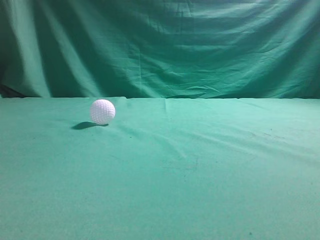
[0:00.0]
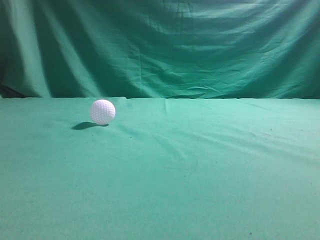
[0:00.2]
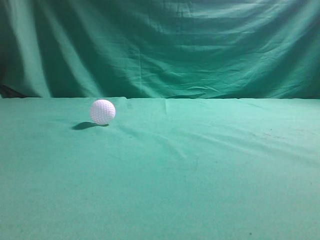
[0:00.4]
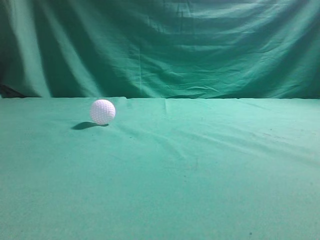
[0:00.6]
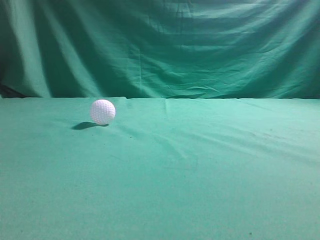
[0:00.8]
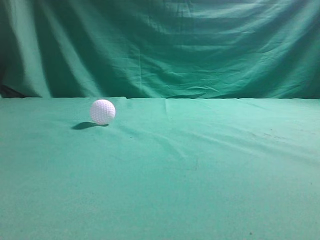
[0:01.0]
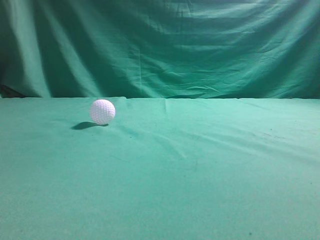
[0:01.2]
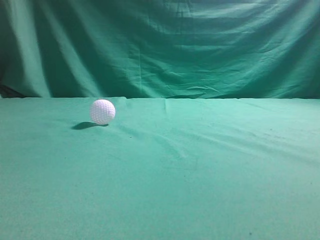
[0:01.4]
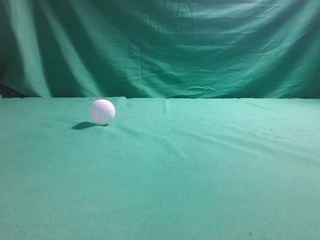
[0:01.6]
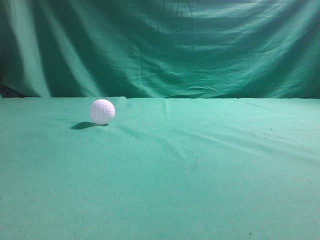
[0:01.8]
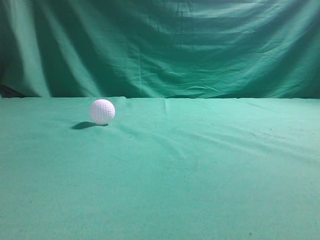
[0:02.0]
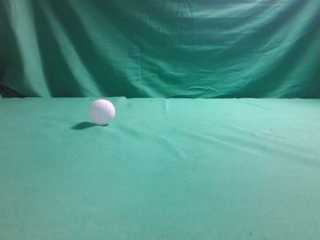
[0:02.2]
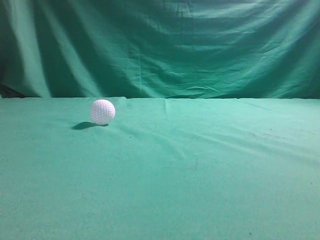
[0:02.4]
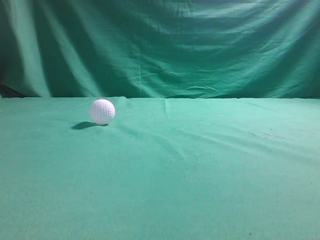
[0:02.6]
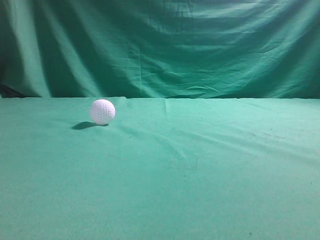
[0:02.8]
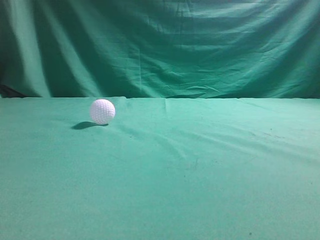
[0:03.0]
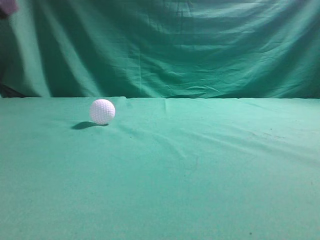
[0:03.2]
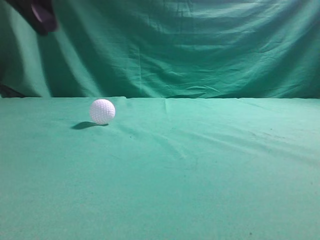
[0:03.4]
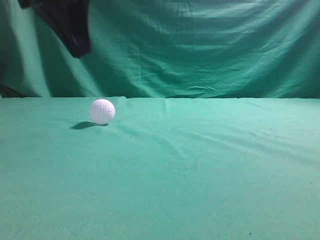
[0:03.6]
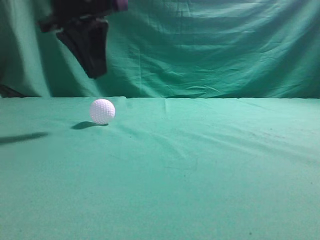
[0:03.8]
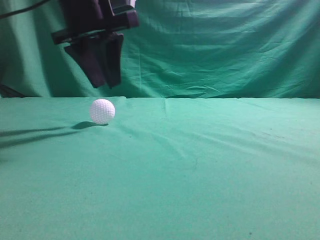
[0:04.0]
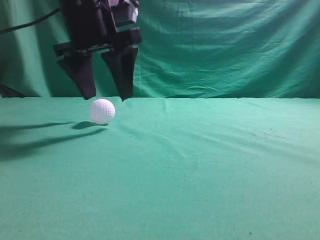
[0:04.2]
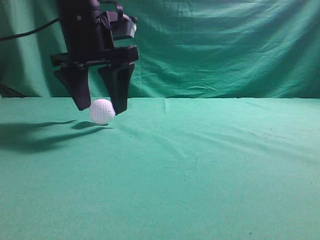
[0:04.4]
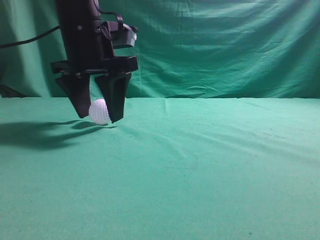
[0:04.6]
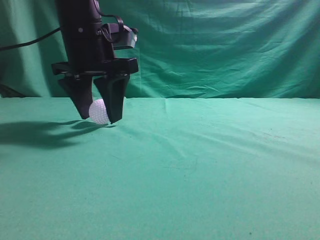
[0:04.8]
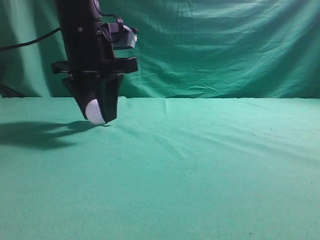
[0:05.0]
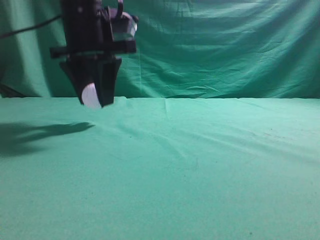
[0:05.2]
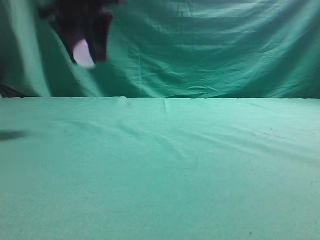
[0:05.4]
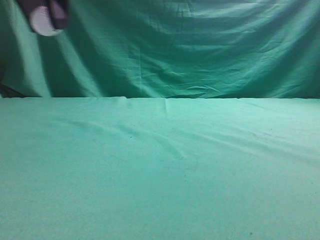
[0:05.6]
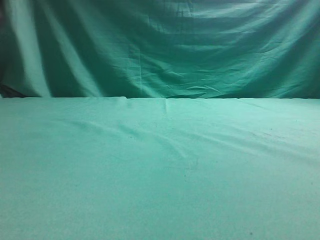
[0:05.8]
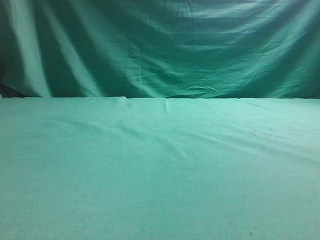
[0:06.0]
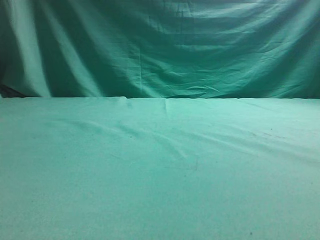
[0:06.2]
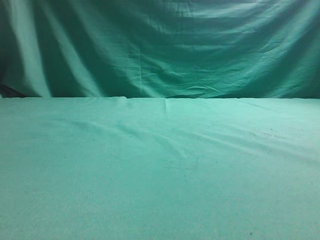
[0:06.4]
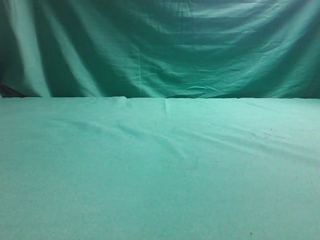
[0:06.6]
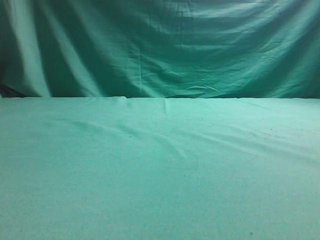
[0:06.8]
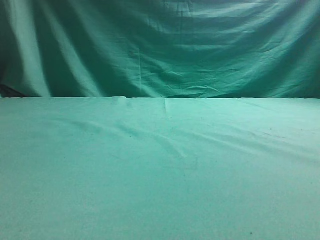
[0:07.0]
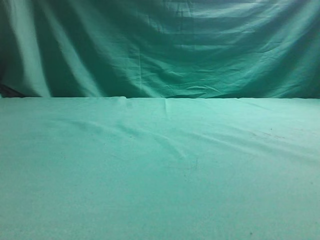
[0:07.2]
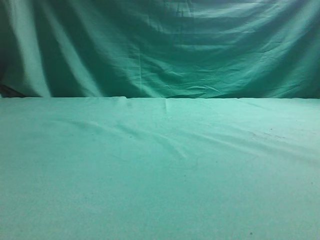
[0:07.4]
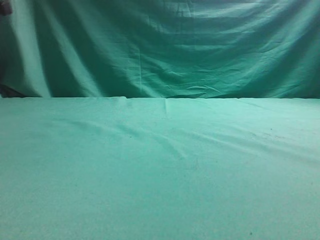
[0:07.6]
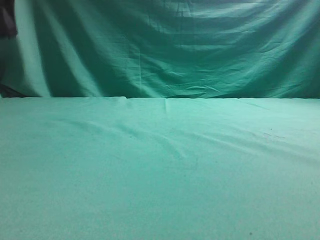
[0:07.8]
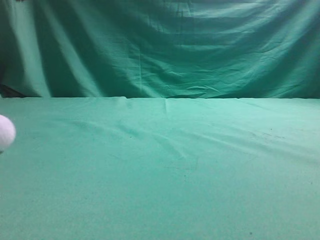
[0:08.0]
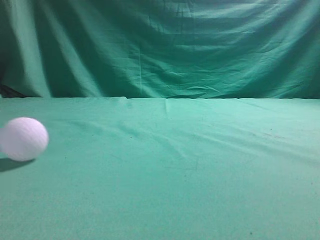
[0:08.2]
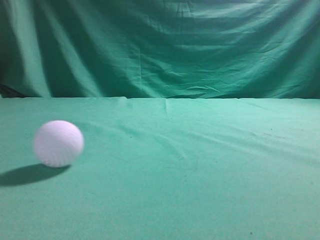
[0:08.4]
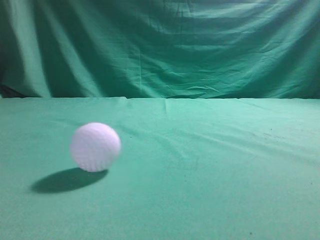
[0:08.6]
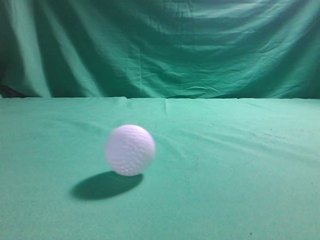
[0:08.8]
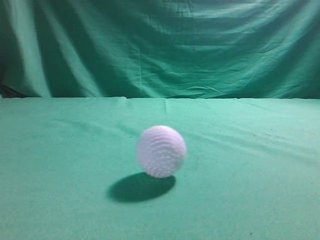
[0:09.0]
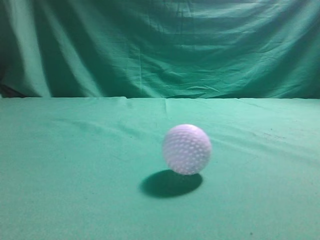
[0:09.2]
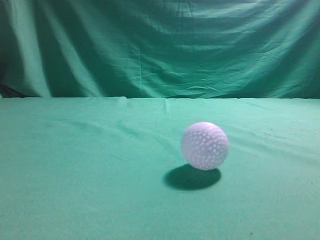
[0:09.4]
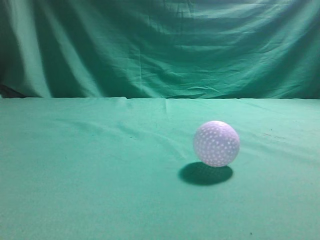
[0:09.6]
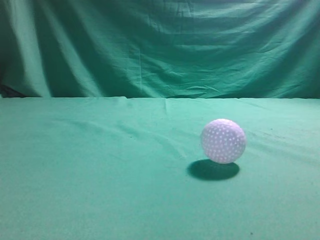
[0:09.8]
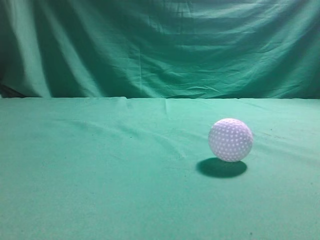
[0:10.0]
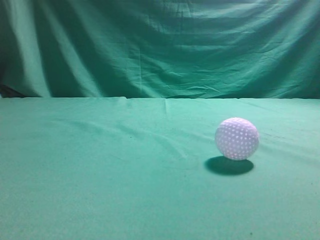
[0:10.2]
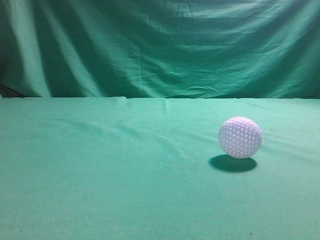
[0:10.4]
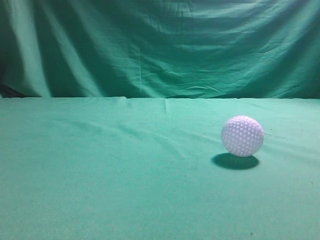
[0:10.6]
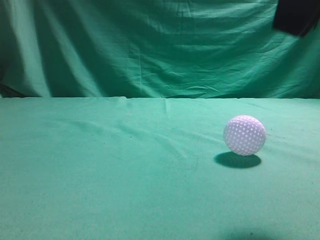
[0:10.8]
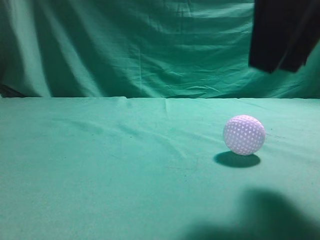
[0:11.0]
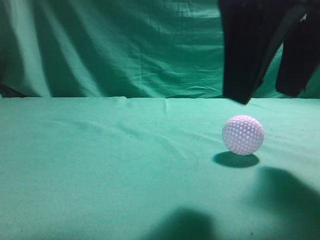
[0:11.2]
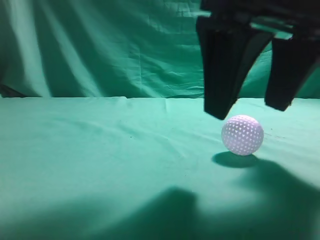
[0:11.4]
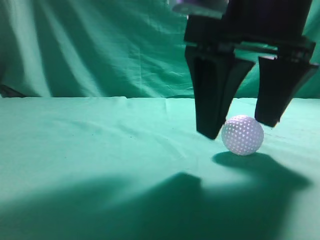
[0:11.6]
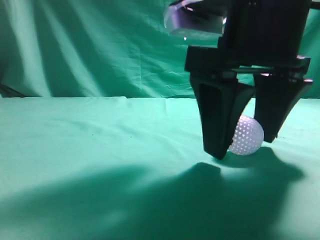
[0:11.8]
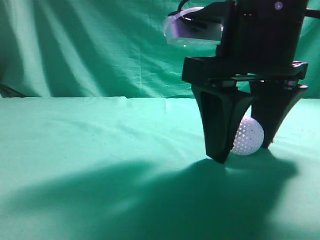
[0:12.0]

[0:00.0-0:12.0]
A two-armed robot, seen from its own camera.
Task of the whole recording: pick up the ball and place it on the plate, then pick up the ball from the plate and put it in the center of the table.
Step, 0:00.0 to 0:05.2: Grab the spherical object with your left arm.
Step, 0:05.6 to 0:07.4: Place the sphere on the white object.
0:03.0 to 0:04.4: The left gripper shifts about 25 cm forward, to the right and downward, and opens its fingers.
0:04.4 to 0:06.0: The left gripper moves to the left, upward and backward, about 20 cm, and closes its fingers.
0:07.6 to 0:09.0: The left gripper heads backward and upward, covering approximately 25 cm, and closes up.
0:09.0 to 0:10.4: The right gripper moves upward, forward and to the left, approximately 15 cm. The left gripper moves downward and backward, approximately 15 cm.
0:10.4 to 0:12.0: The right gripper moves downward, to the left and forward, roughly 20 cm, and opens up.

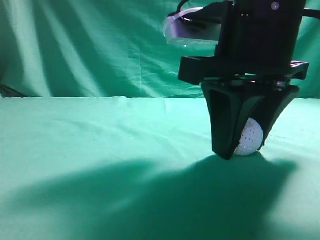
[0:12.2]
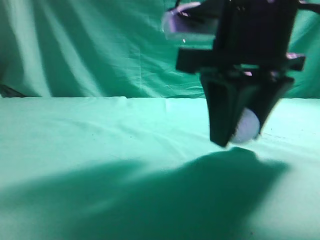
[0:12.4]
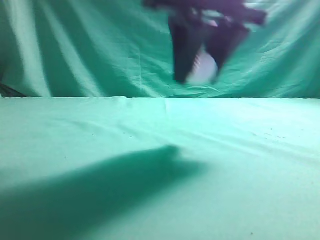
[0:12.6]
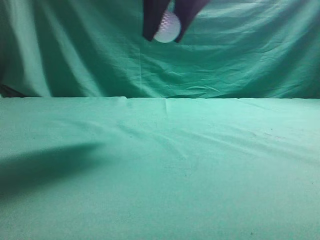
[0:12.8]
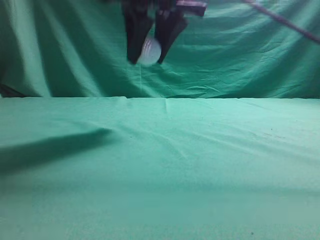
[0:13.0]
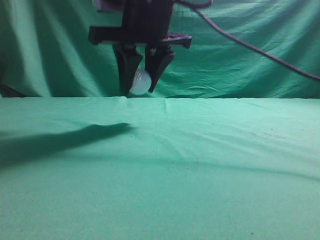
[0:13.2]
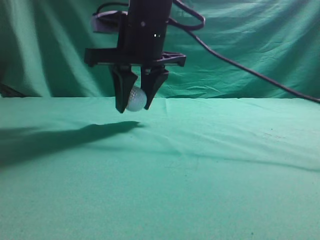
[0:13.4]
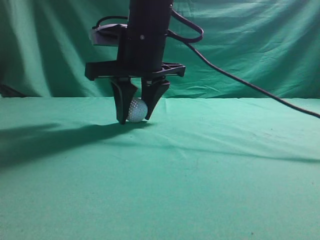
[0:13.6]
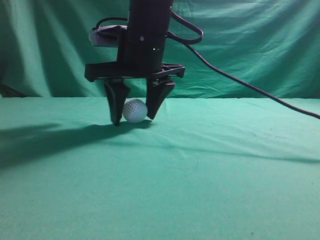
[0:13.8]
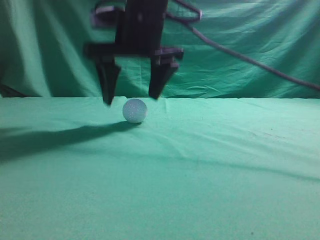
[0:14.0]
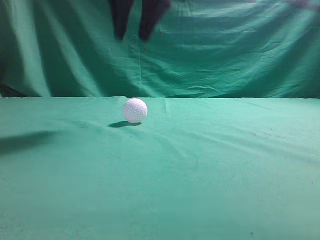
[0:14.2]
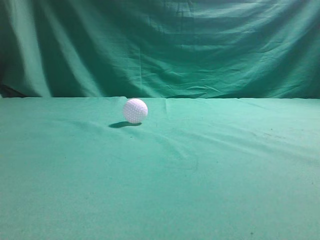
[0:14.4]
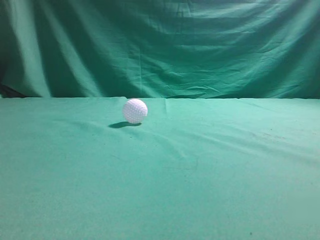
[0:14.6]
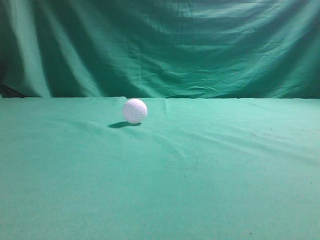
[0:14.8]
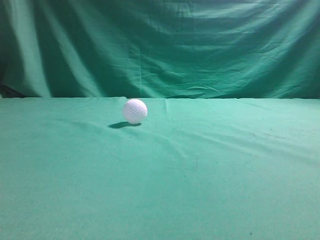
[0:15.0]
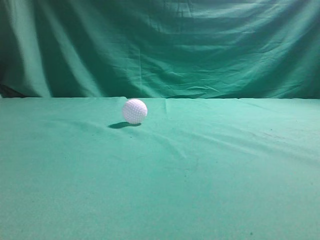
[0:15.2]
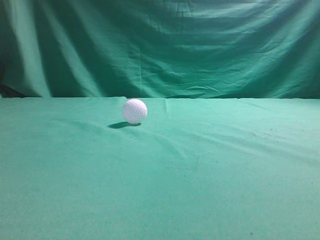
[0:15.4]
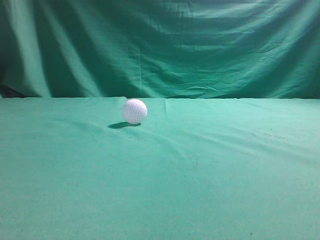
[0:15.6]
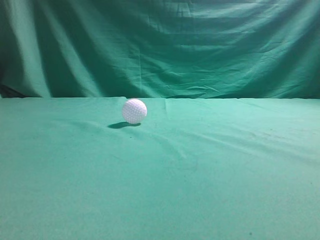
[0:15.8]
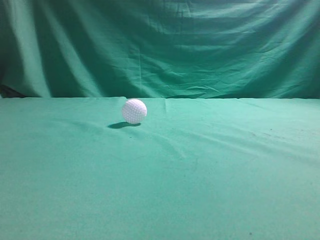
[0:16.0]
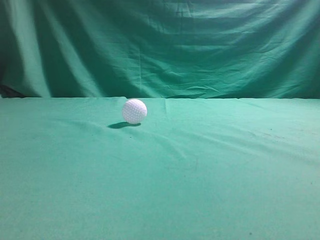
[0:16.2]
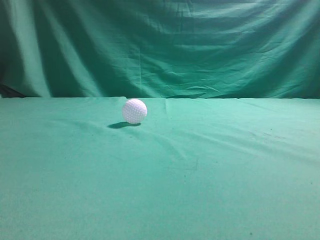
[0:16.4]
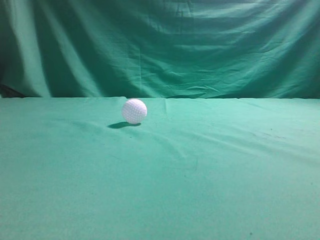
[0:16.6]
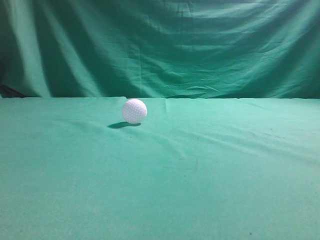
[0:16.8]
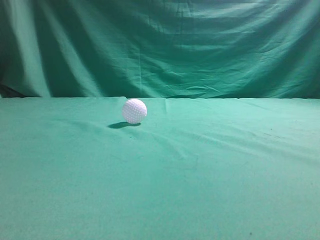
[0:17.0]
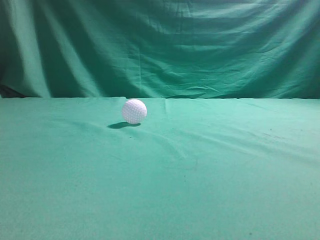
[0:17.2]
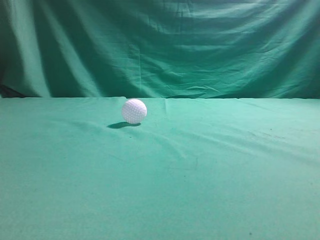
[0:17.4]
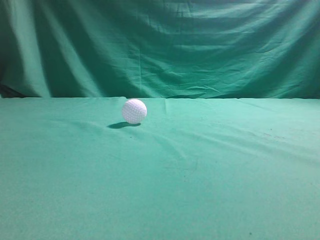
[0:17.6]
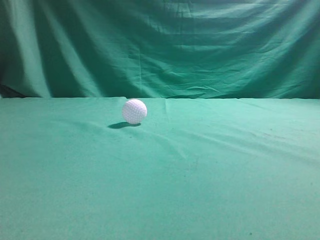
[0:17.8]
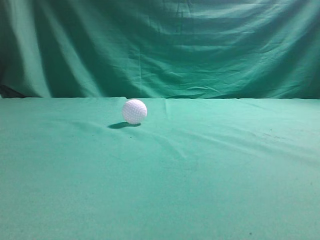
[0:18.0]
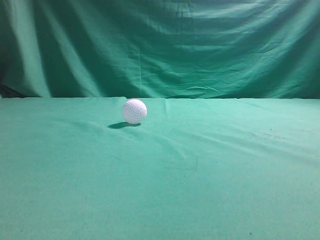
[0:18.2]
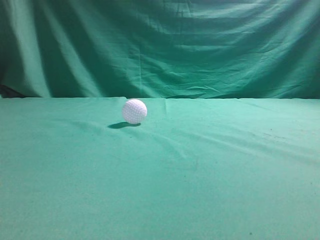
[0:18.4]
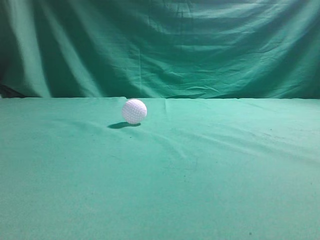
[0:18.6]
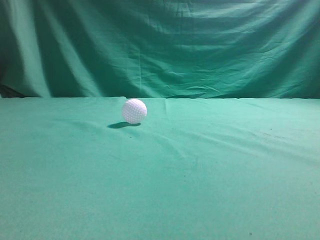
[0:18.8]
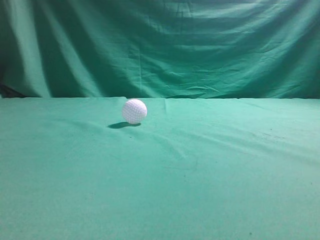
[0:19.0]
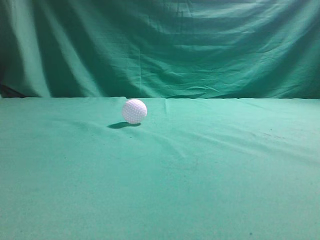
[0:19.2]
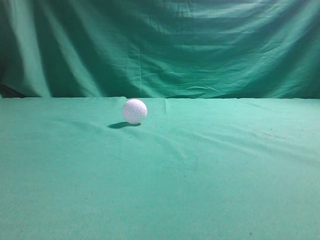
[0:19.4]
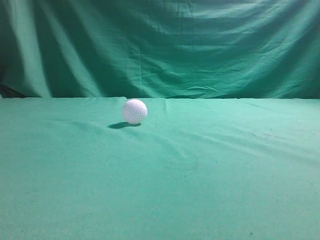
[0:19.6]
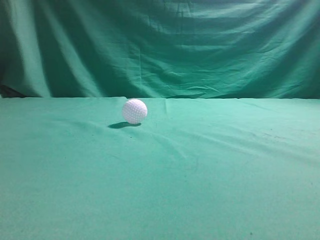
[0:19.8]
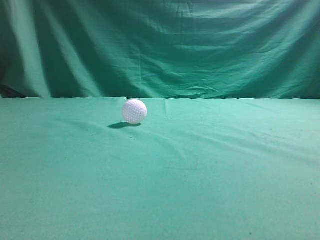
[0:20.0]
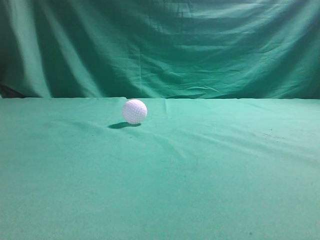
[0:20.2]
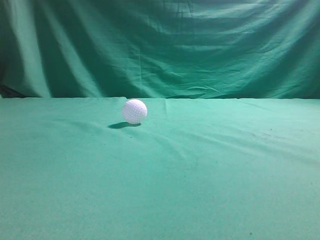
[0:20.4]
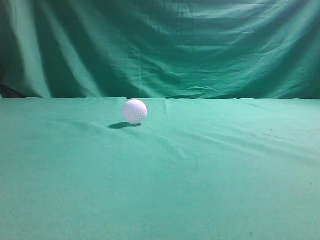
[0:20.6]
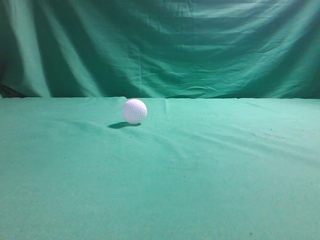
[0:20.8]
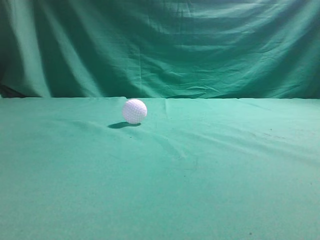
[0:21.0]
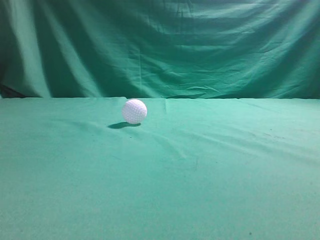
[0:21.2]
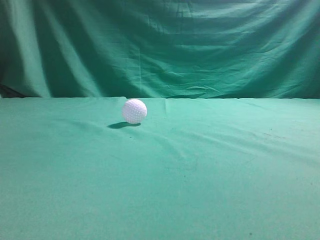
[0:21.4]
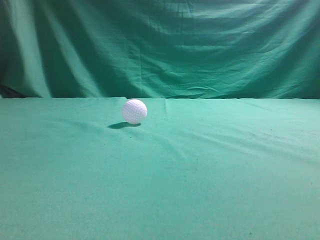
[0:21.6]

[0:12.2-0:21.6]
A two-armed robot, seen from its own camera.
Task of the whole recording: pick up the ball and place it on the plate, then pick up the ball from the plate and put it in the center of the table.
Step, 0:12.6 to 0:14.0: Put the picked-up object on the table.
0:12.2 to 0:13.8: The right gripper heads forward and to the left, covering some 15 cm.
0:13.8 to 0:15.4: The right gripper shifts approximately 40 cm upward, backward and to the right, and closes its fingers.
